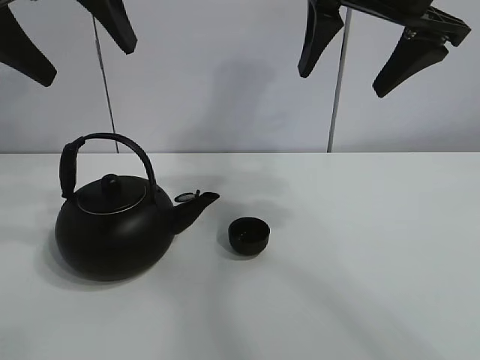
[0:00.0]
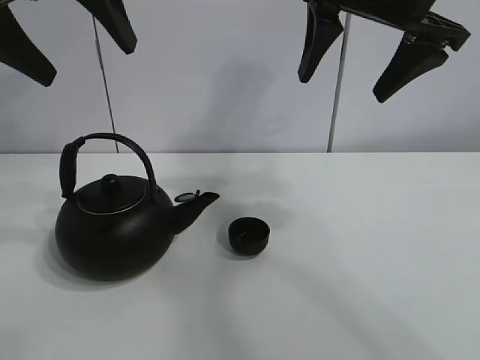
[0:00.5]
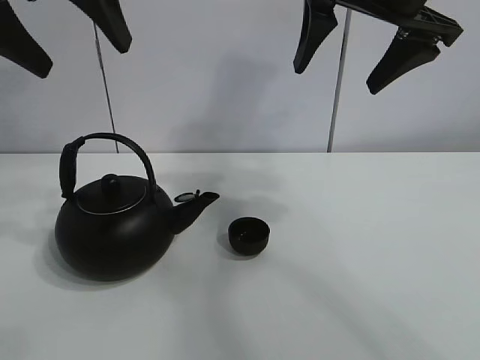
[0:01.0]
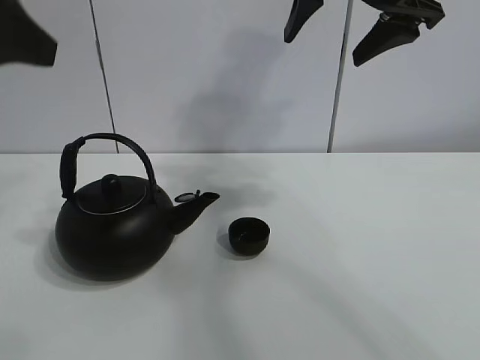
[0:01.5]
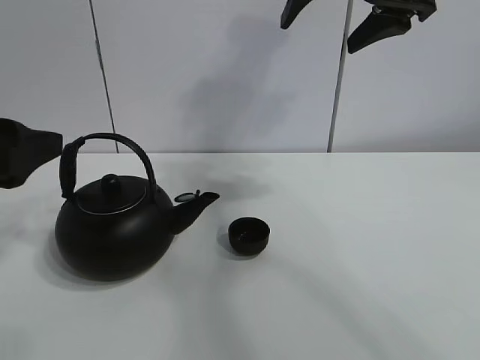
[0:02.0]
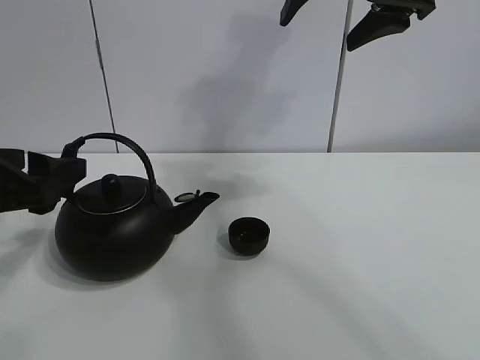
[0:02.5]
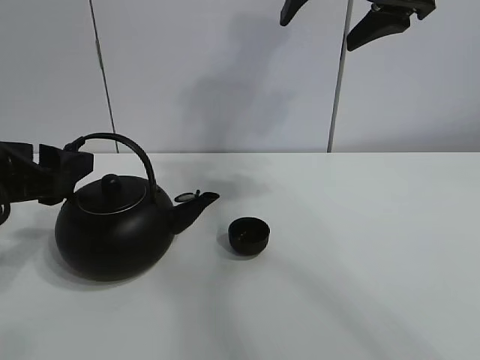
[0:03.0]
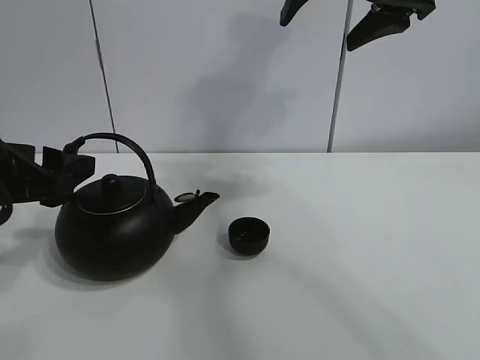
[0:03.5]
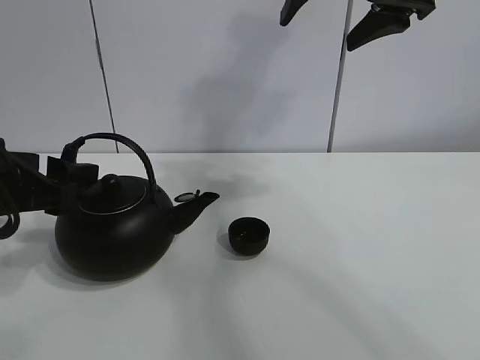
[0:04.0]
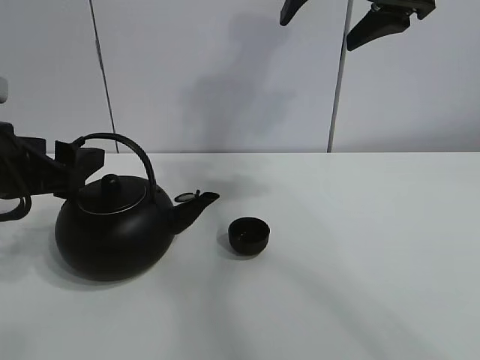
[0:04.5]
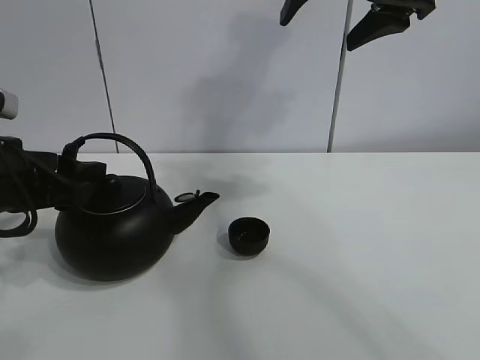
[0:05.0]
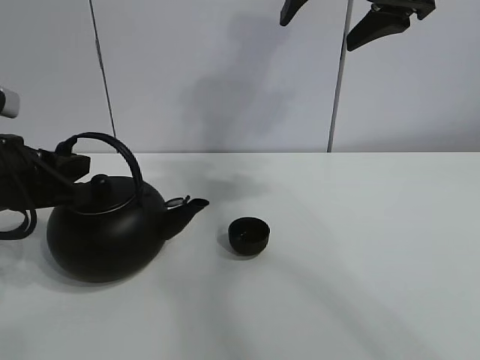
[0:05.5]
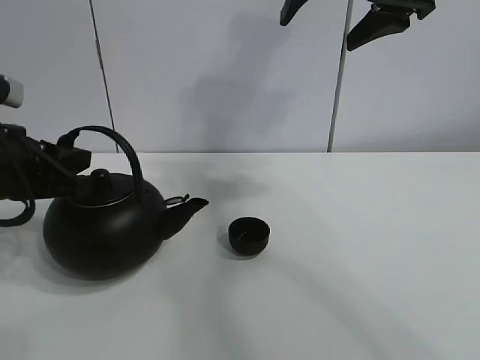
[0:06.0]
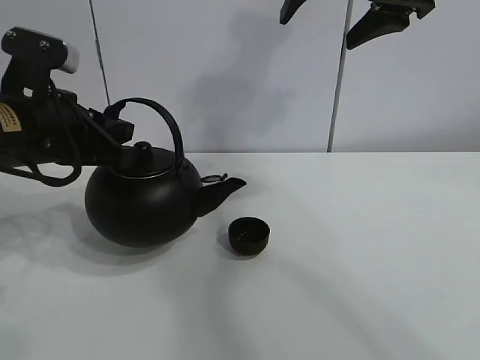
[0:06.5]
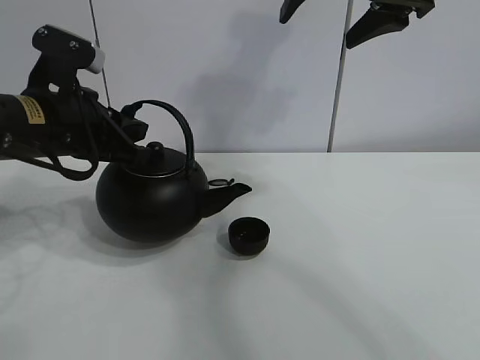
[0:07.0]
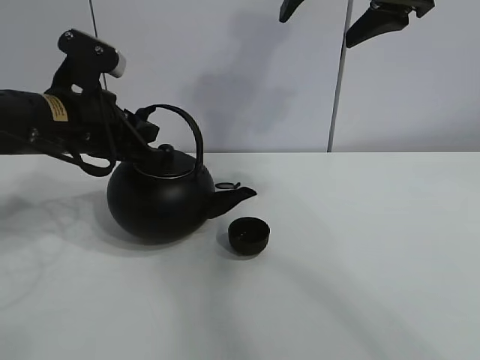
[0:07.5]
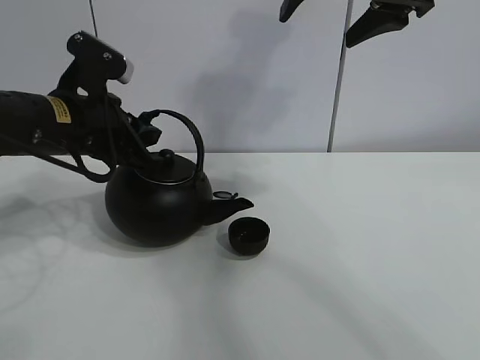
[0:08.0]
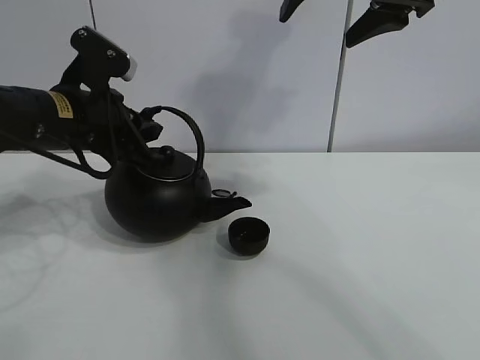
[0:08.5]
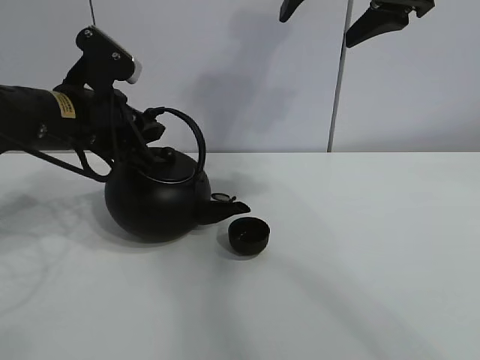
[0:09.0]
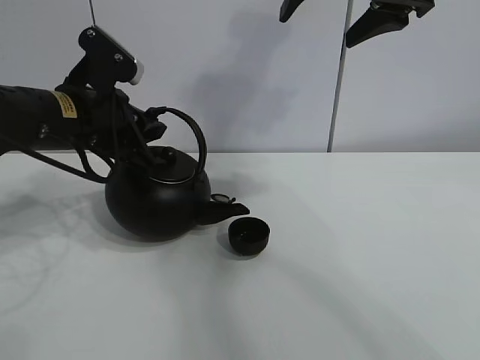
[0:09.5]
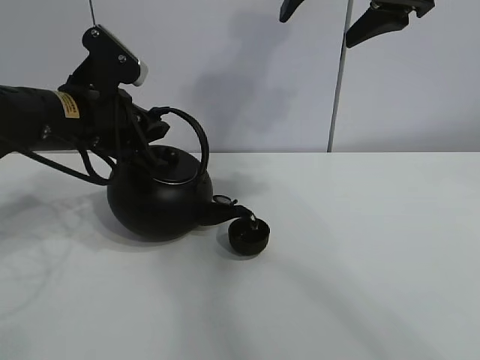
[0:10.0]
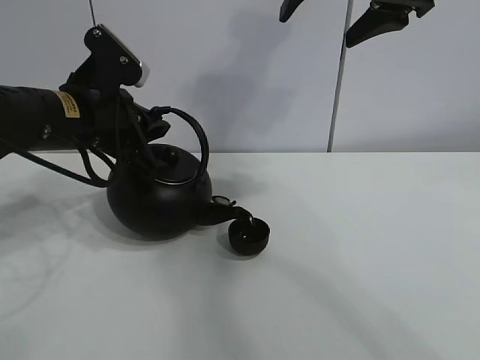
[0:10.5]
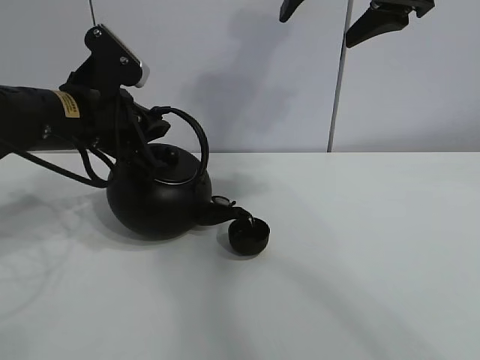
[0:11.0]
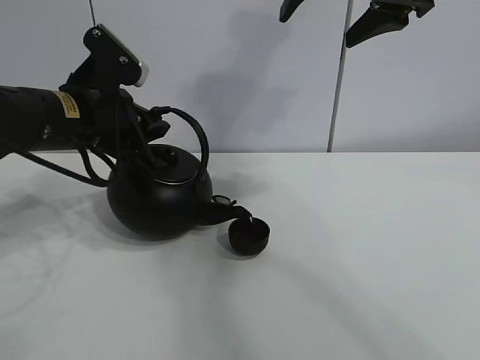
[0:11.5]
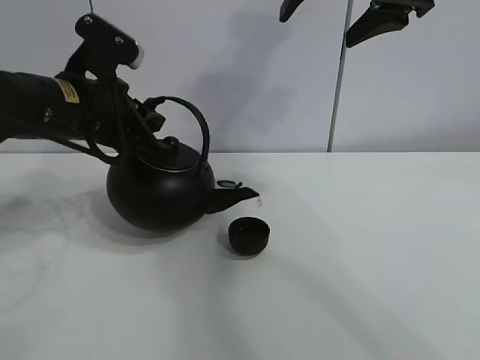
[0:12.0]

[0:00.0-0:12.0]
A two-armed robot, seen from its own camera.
Task of the whole recording: pour tea into the teacup.
Step, 0:00.0 to 0:05.5: Pick up the teapot with the left gripper.
Step, 0:06.0 to 0:12.0: Pour tea into the teacup with the left gripper.
0:00.0 to 0:02.0: The left gripper moves downward, backward and to the left, approximately 20 cm.
0:02.0 to 0:04.0: The left gripper goes roughly 5 cm downward.
0:04.0 to 0:06.0: The left gripper closes.
0:06.0 to 0:08.0: The left gripper shifts approximately 10 cm forward and to the right.
0:08.0 to 0:12.0: The grippers stay close to where they were, moving slightly.

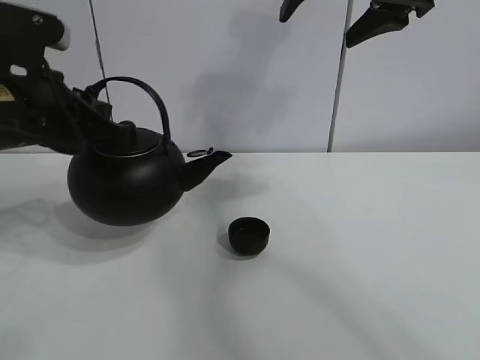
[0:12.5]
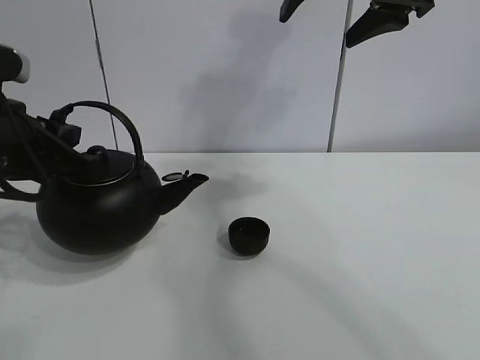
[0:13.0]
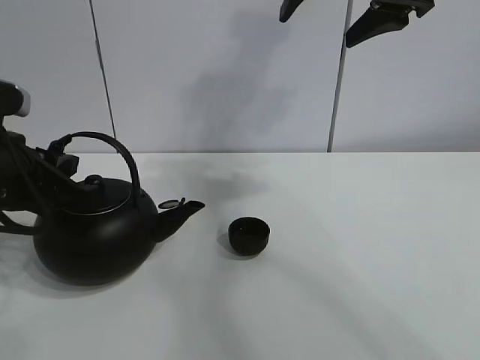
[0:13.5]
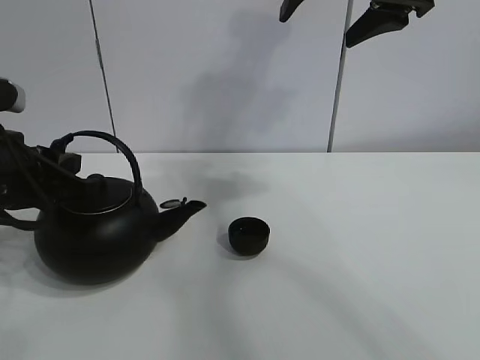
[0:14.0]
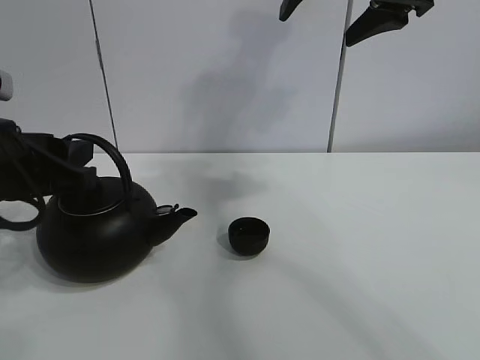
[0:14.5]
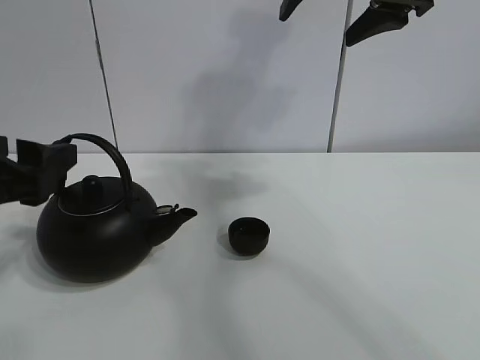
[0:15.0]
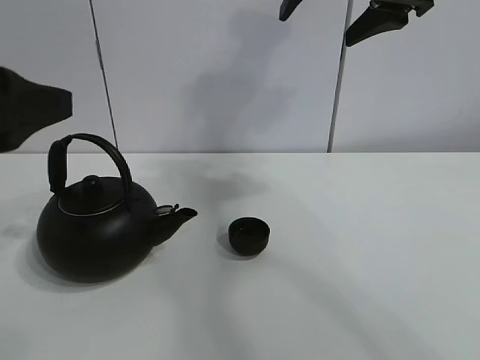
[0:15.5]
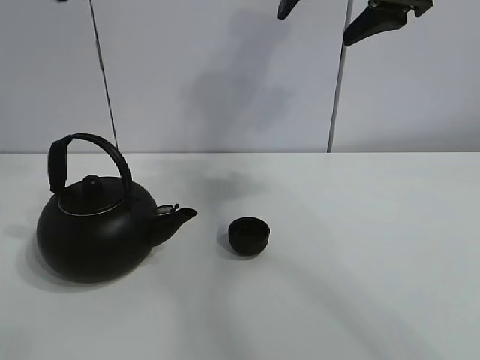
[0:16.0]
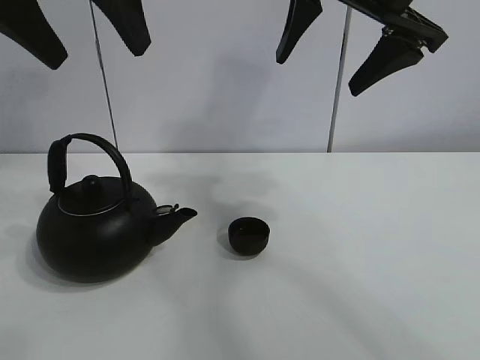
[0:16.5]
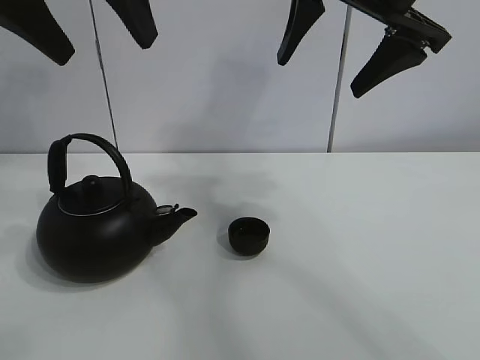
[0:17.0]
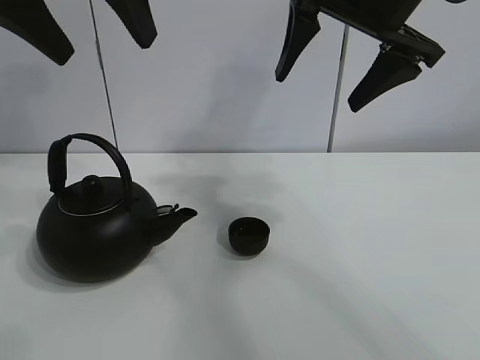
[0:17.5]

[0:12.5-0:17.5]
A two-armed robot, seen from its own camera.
Task of the whole recording: pour tea into the teacup.
0:12.5 to 0:15.0: The left gripper travels backward by roughly 10 cm, and opens.
0:15.0 to 0:17.5: The left gripper travels upward by roughly 20 cm.

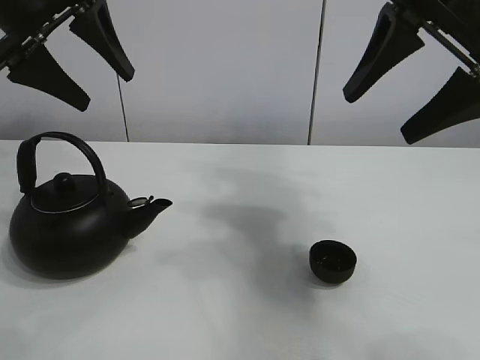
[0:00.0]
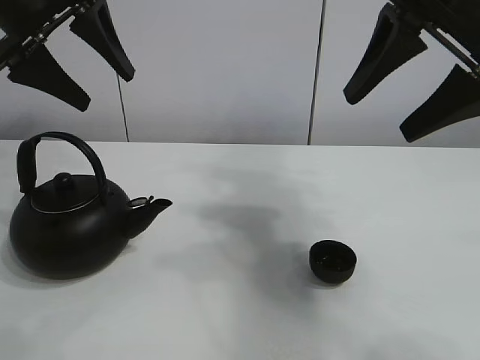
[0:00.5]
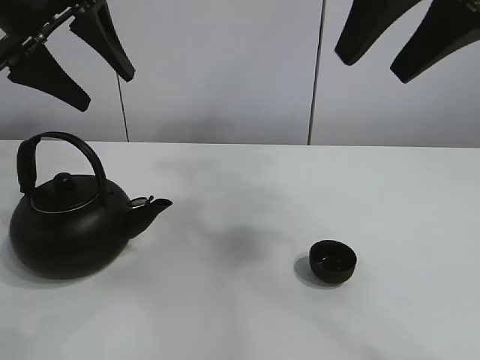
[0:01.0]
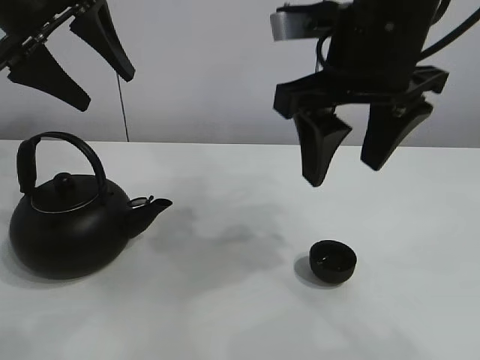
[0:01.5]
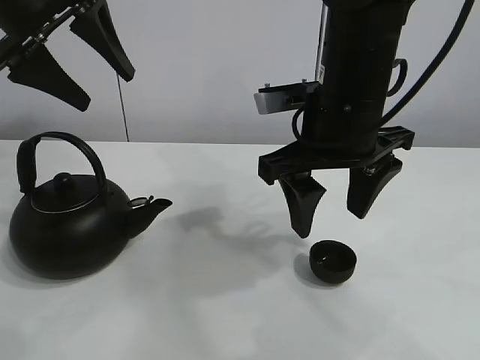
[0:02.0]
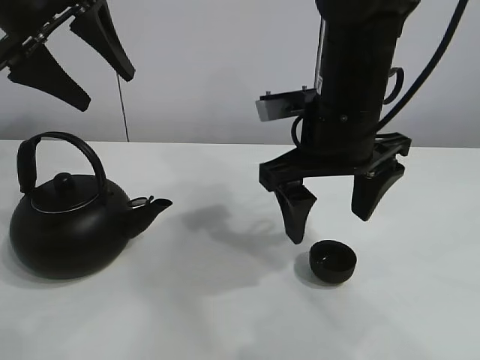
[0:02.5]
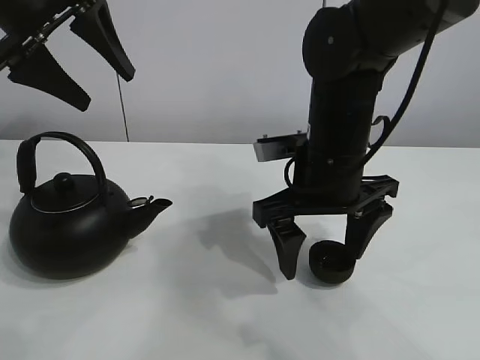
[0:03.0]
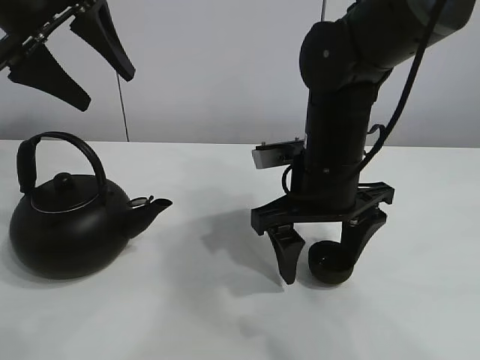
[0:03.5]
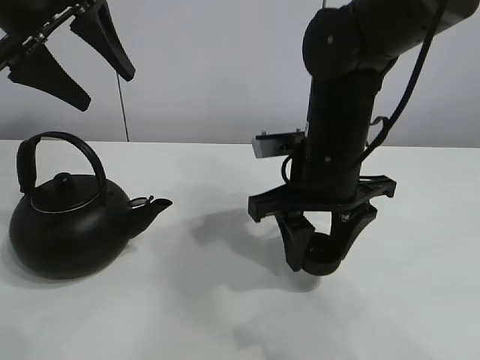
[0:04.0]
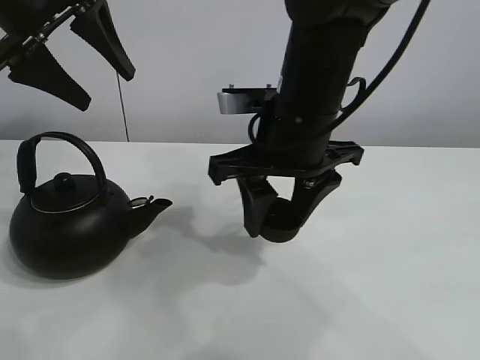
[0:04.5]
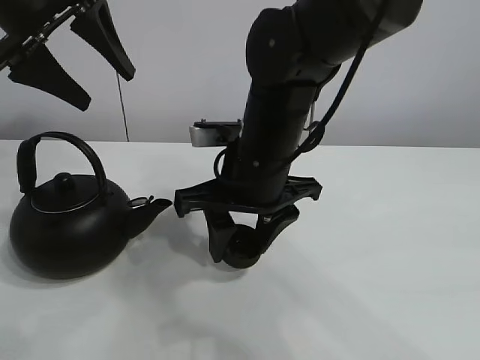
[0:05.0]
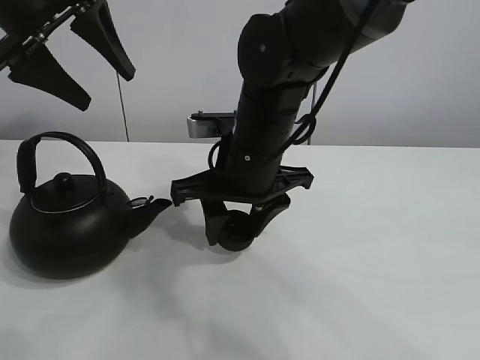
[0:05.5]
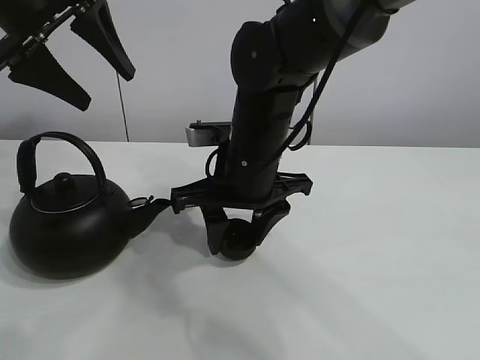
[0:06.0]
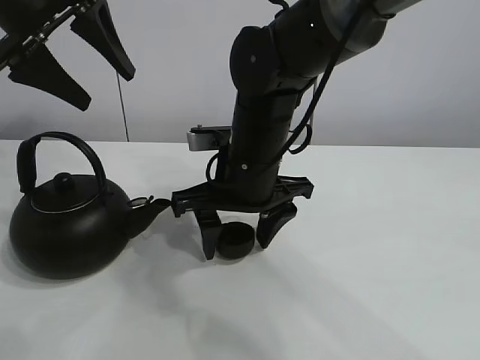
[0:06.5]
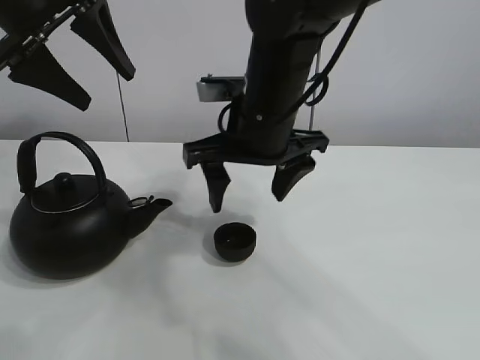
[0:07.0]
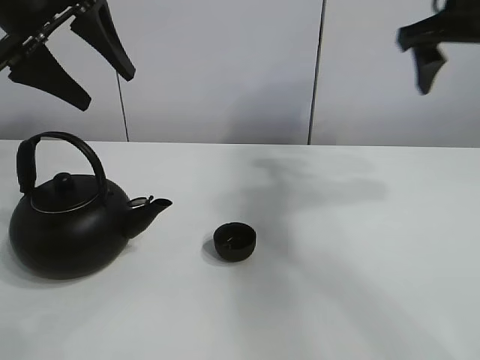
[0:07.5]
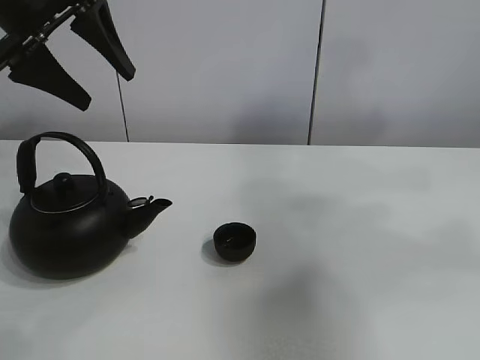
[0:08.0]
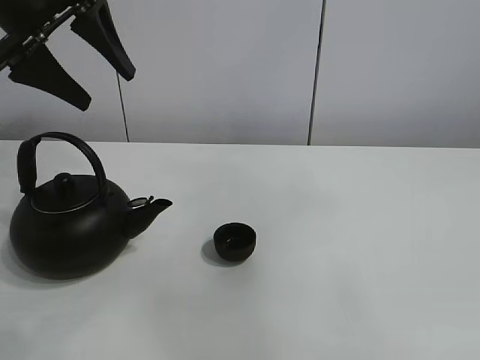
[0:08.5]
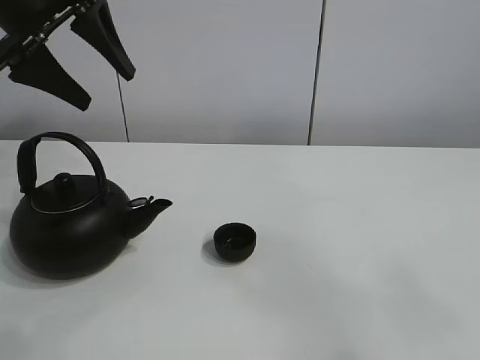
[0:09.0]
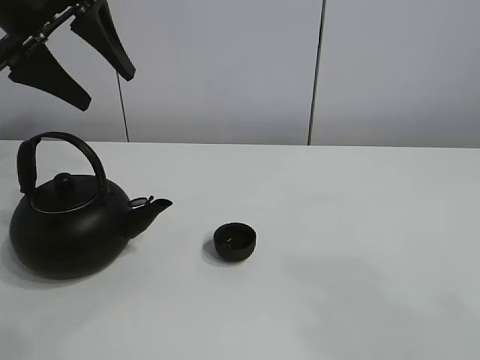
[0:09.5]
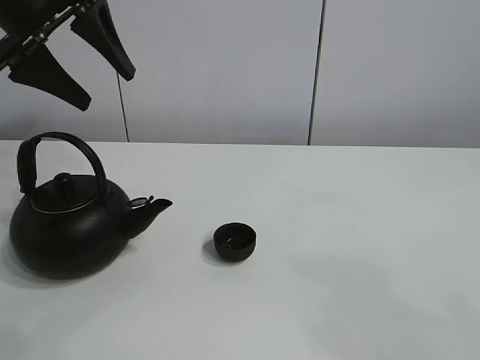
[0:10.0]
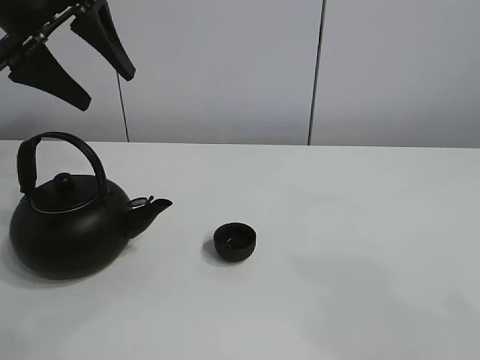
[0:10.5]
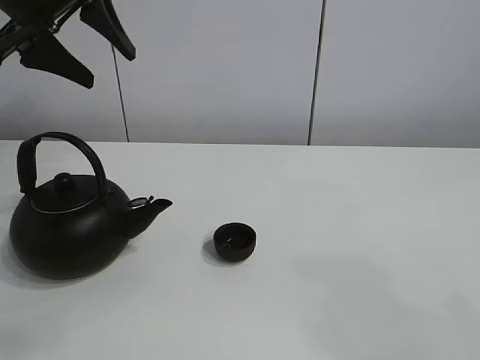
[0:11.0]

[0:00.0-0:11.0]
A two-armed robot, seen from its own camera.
Task of the whole recording: pour tea into the teacup.
Step, 0:00.0 to 0:03.5: Pick up the teacup with the right gripper.
Step, 0:04.0 to 0:06.5: Place the teacup in the center of view with the right gripper.
0:02.0 to 0:03.5: The right gripper heads downward, covering some 5 cm.
0:03.5 to 0:05.5: The right gripper moves to the left, roughly 5 cm, and closes its fingers.
0:05.5 to 0:07.5: The right gripper heads to the right and upward, covering about 30 cm, and opens.
0:07.5 to 0:09.0: The right gripper heads backward, covering some 40 cm.
